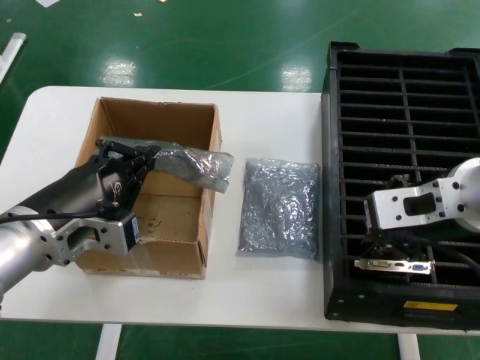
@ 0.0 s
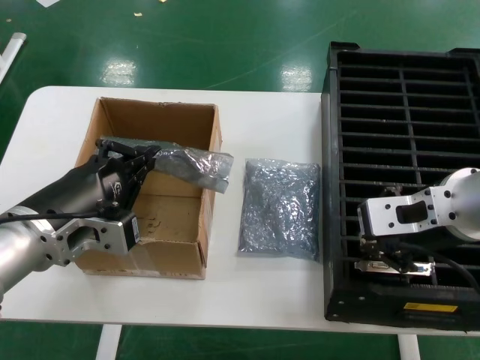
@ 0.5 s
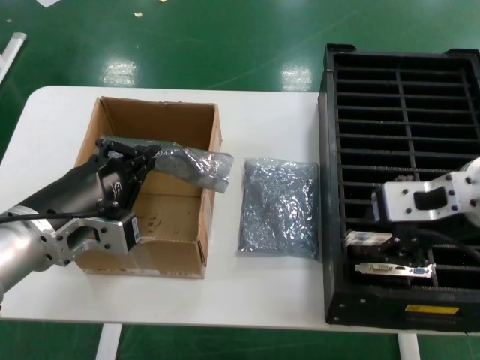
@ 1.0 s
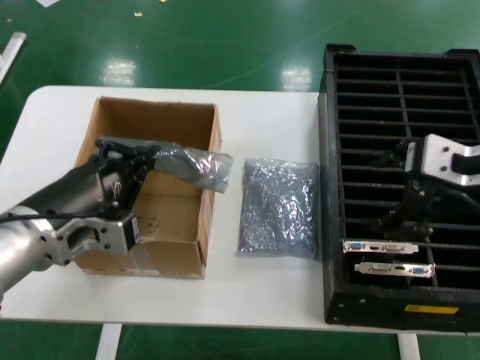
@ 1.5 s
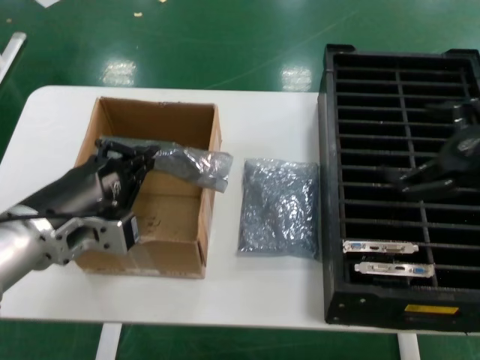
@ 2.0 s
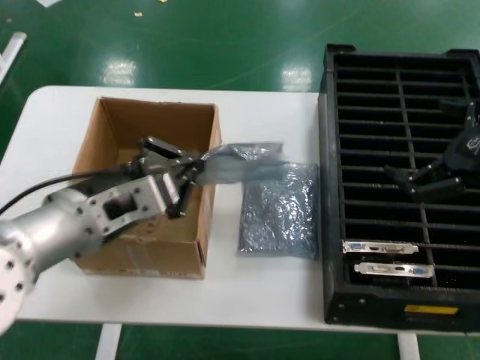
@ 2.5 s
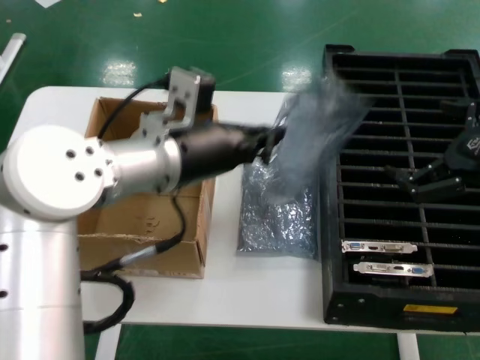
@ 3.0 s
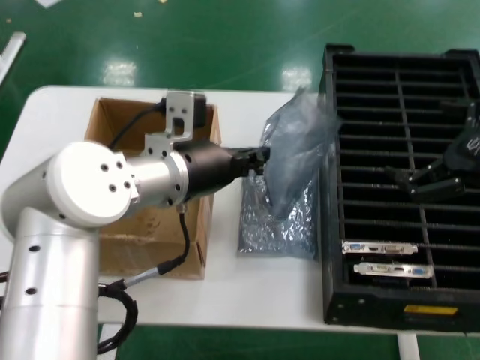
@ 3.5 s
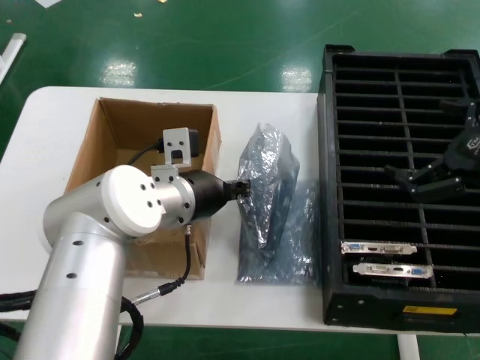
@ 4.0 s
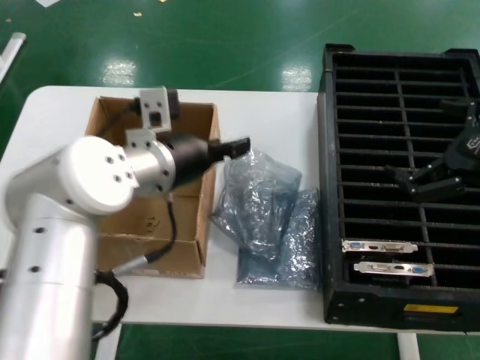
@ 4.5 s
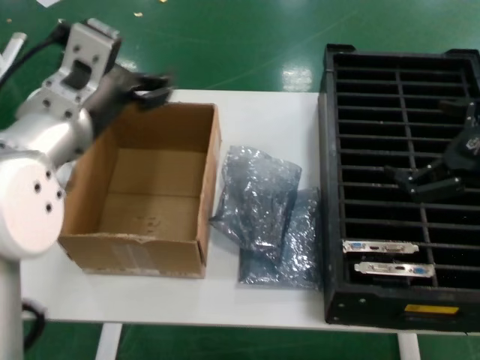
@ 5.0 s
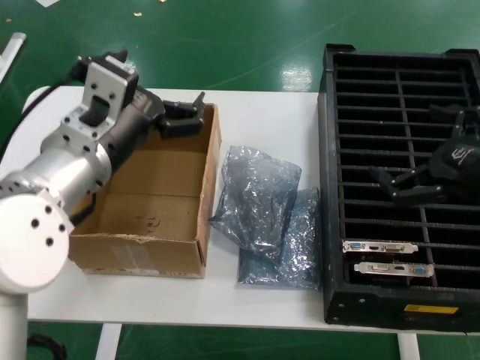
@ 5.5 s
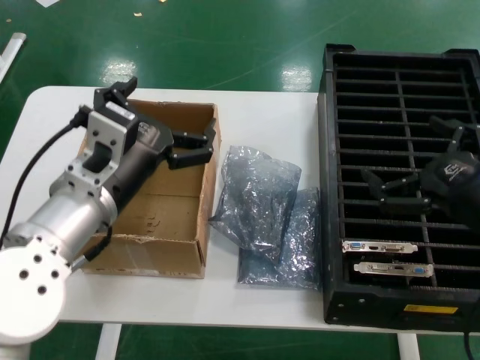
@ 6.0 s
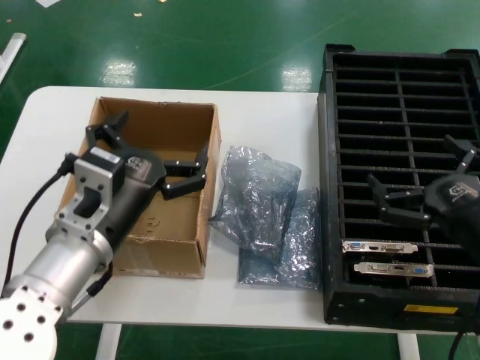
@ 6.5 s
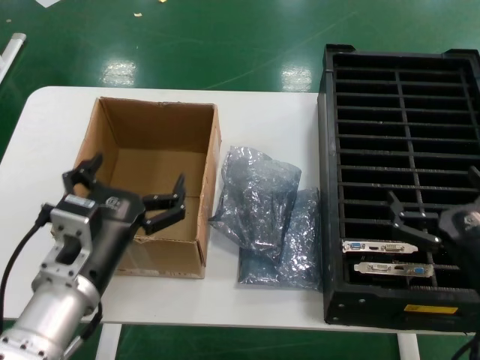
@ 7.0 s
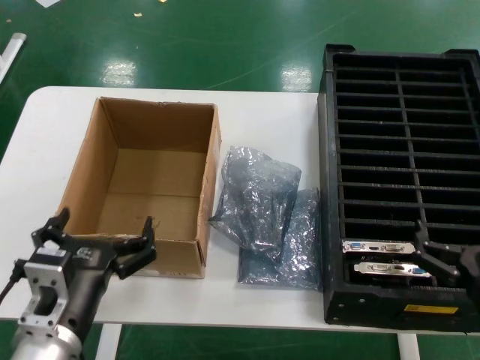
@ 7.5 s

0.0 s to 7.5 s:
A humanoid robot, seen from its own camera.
Task of the whole recording: take out graphics card from box remove packaging put into black container.
Step, 2.0 to 4.5 s: Place the down the bag.
0.0 to 2.0 s: The right hand shifts some 15 cm to the right.
2.0 to 4.0 s: The left hand travels forward and to the right by roughly 20 cm.
4.0 to 5.5 s: The left hand travels backward, upward and to the left by about 15 cm.
5.5 to 7.5 s: The hands both shift downward and backward by some 20 cm.
